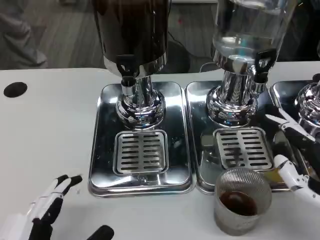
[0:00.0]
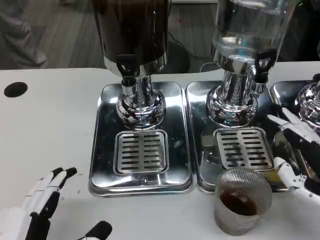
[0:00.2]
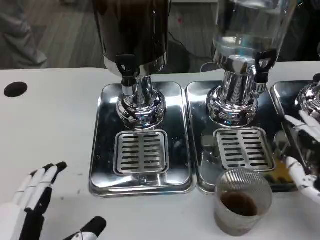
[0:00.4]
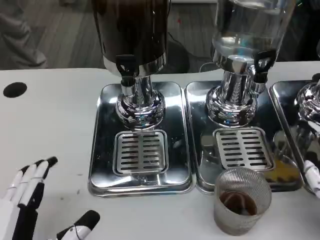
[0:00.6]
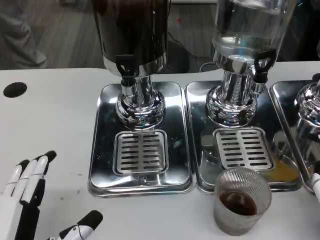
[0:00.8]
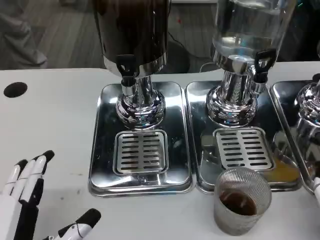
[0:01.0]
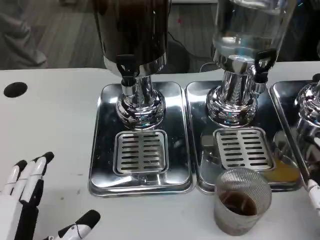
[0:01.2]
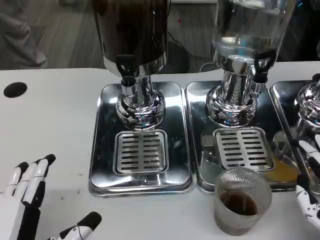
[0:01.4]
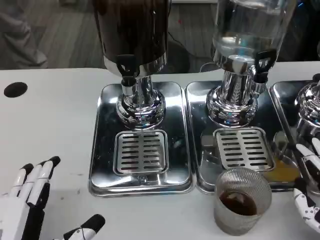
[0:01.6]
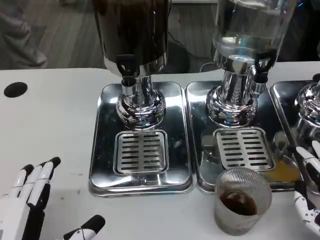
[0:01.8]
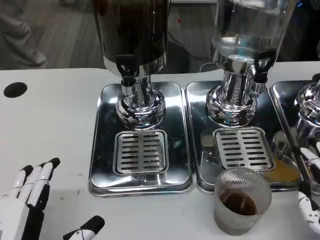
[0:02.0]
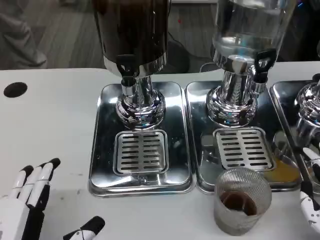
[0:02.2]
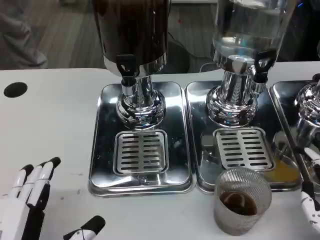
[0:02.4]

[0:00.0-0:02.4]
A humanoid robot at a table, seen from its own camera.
Task of the whole recording: Grasp the cup under the faucet to collect the drink, then remove the cup.
0:01.2 to 0:02.4: The hands stay close to where they were, moving slightly.

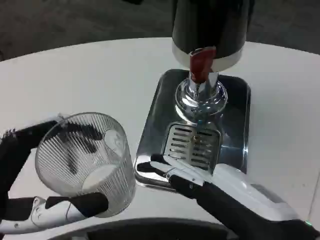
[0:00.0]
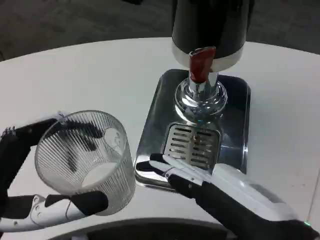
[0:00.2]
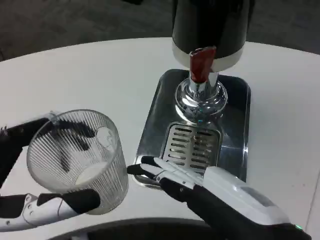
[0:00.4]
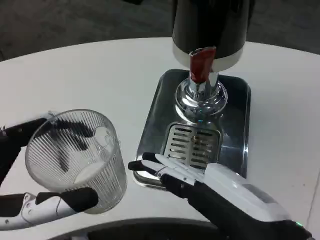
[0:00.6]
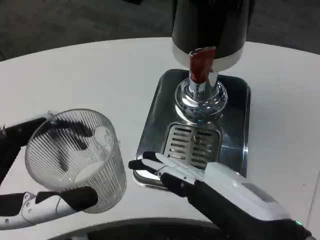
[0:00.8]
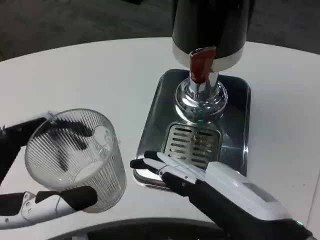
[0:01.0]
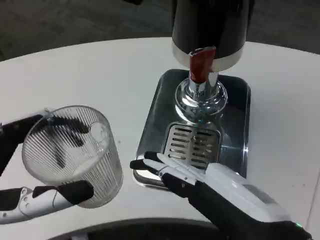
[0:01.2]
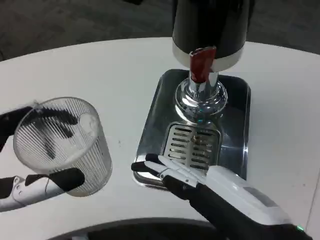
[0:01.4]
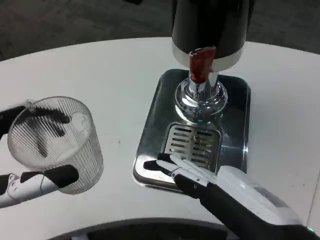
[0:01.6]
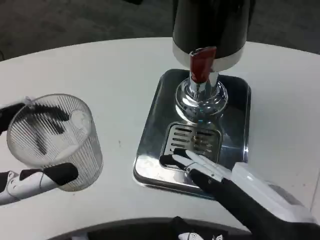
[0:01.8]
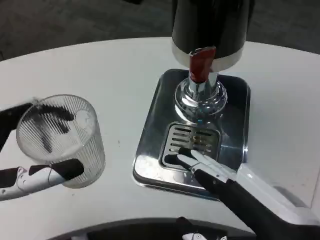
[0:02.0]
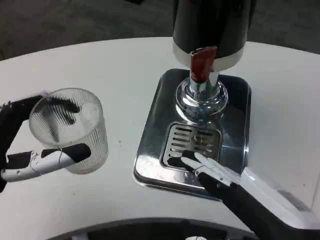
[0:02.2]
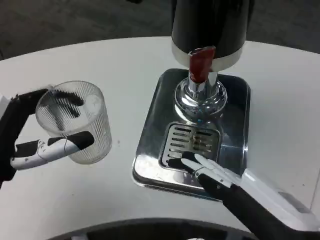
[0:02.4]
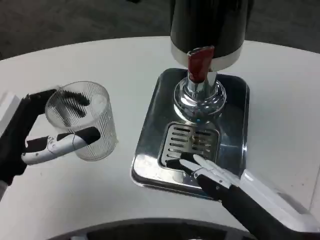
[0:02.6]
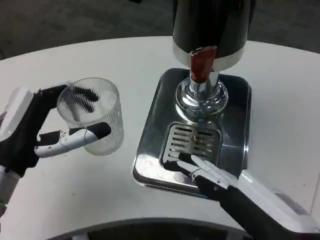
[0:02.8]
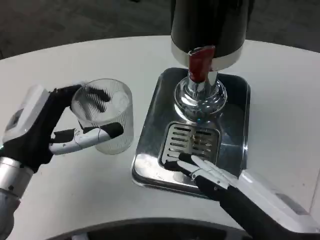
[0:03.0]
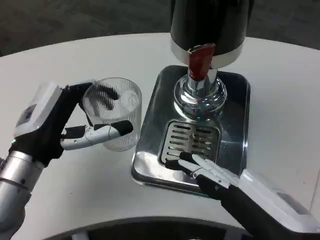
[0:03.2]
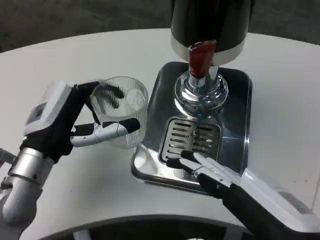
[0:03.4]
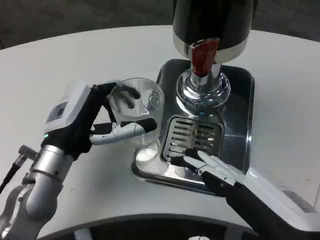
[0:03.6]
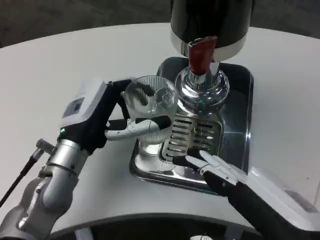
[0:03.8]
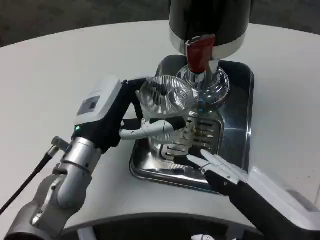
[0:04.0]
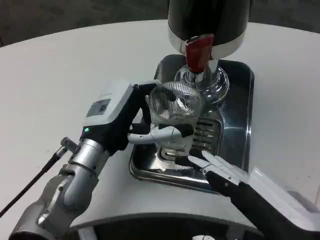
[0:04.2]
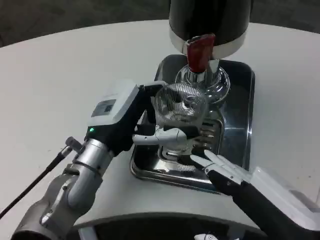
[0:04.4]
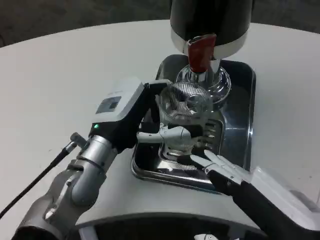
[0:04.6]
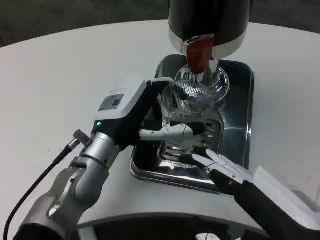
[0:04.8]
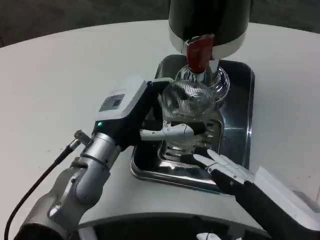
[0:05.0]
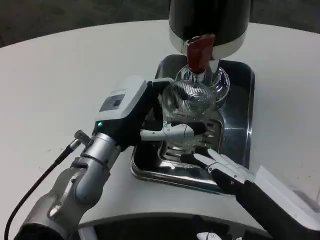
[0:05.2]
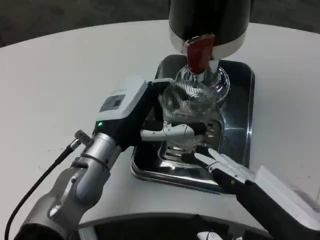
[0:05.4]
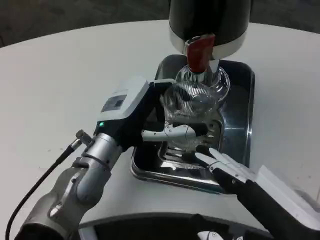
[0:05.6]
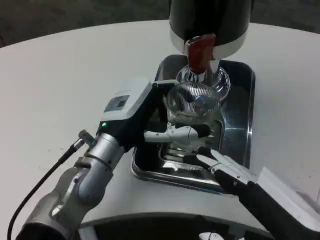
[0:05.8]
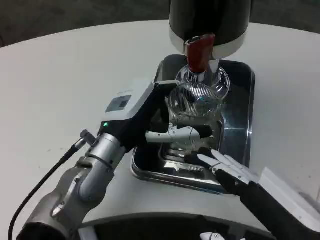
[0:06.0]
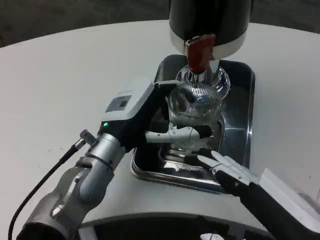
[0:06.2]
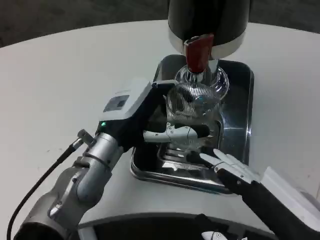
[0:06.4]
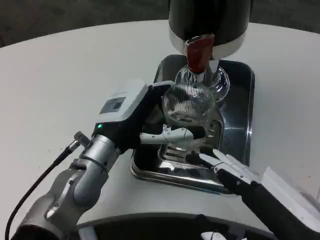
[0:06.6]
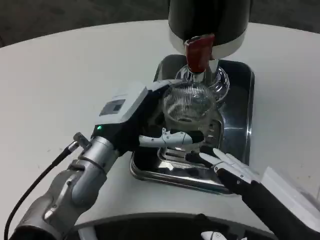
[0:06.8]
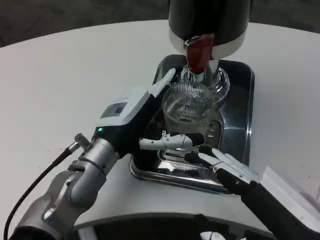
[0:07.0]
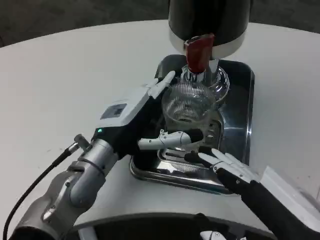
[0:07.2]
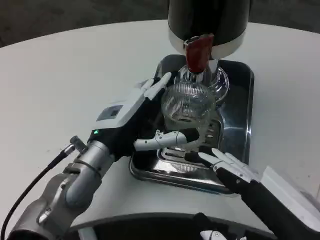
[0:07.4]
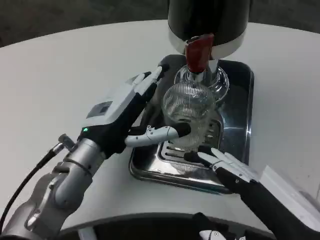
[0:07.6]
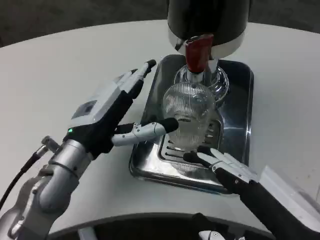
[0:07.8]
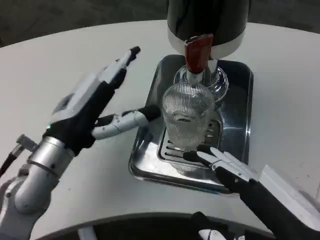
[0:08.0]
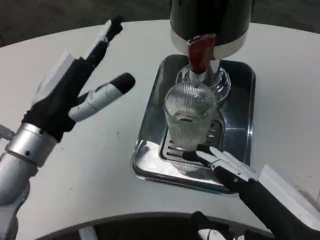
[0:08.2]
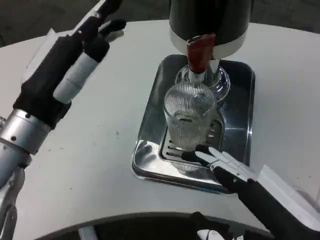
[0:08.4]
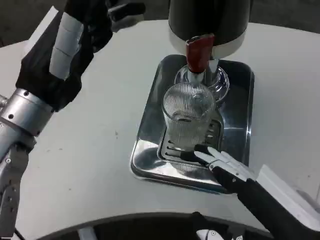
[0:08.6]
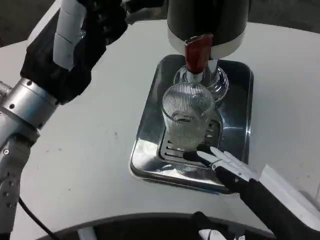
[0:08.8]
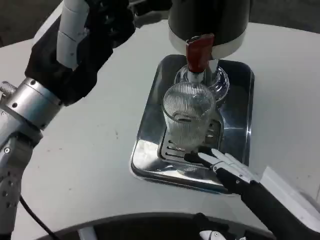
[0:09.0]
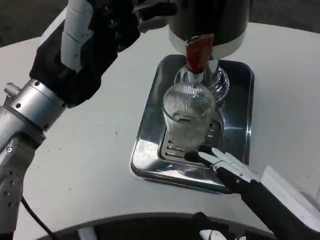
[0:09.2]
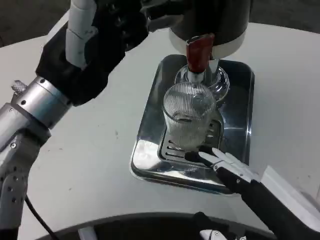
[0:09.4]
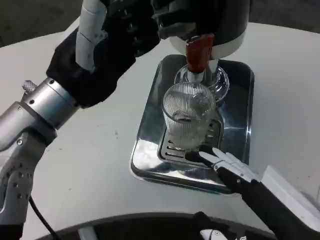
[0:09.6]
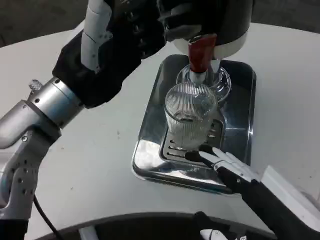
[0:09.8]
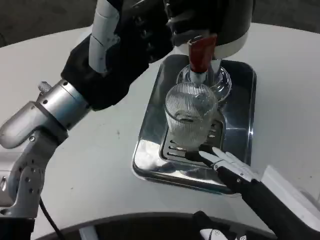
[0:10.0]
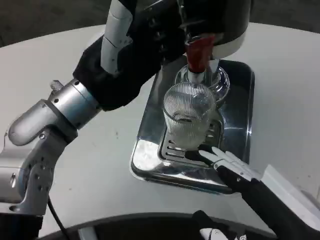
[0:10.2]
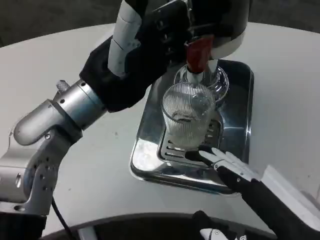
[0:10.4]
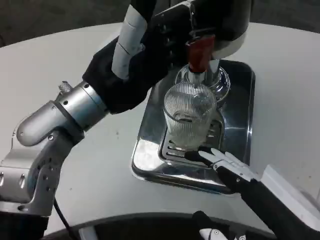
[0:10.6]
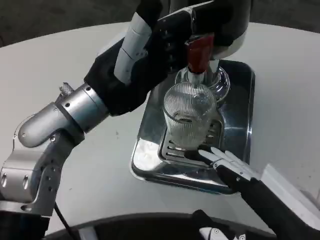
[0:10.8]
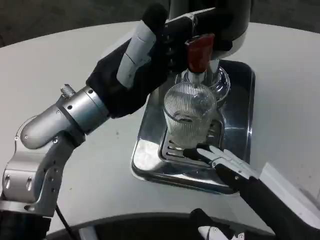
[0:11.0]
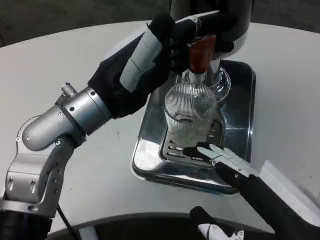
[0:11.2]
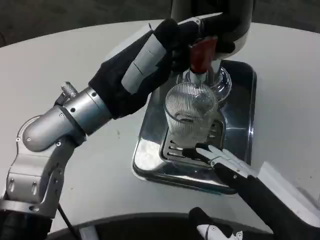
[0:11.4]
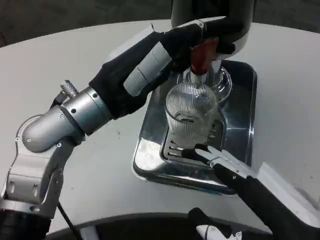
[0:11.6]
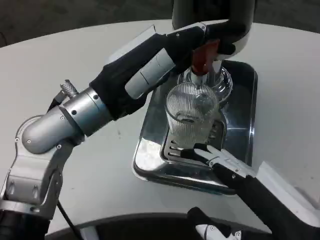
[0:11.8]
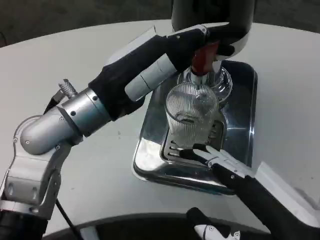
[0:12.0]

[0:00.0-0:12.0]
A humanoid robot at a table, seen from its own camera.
Task of the whole recording: Grasp the cup under the faucet to collect the drink, then remove the cup.
0:00.0 to 0:01.6: The hands make only small movements.
0:01.6 to 0:03.0: The left hand travels forward by approximately 10 cm.
0:03.0 to 0:04.4: The left hand heads to the right and forward, covering some 10 cm.
0:04.4 to 0:06.0: There are only small adjustments of the hands.
0:07.6 to 0:09.0: The left hand heads upward, covering approximately 10 cm.

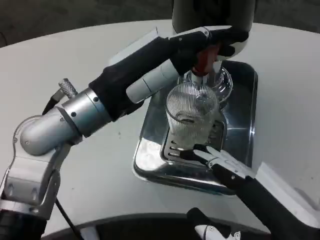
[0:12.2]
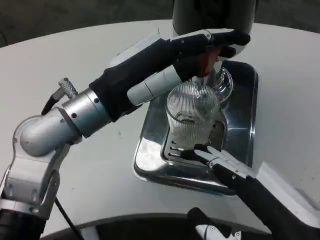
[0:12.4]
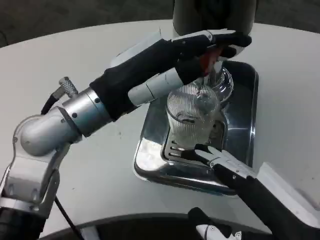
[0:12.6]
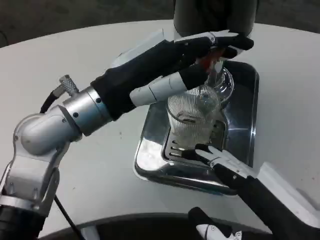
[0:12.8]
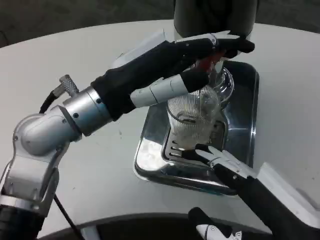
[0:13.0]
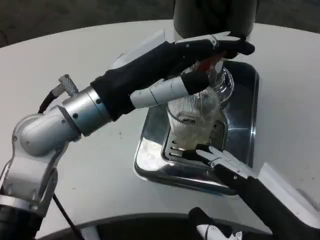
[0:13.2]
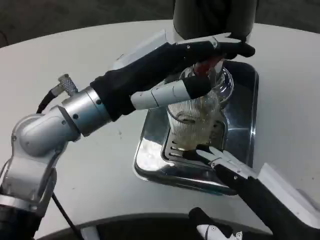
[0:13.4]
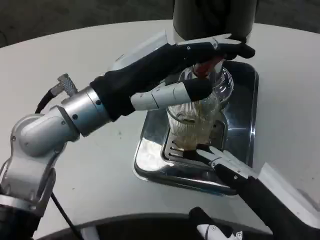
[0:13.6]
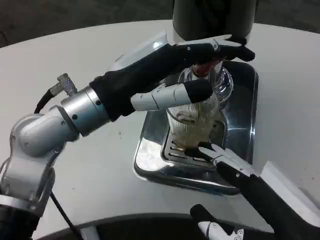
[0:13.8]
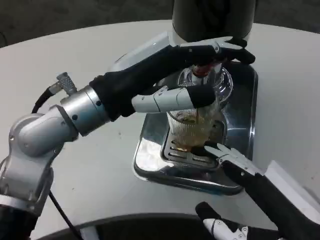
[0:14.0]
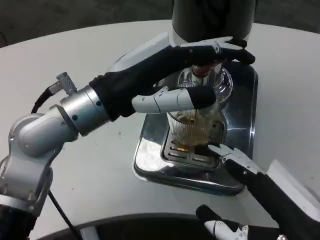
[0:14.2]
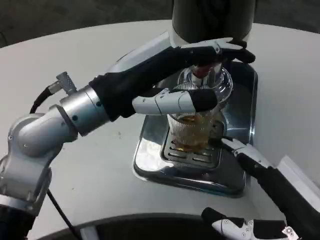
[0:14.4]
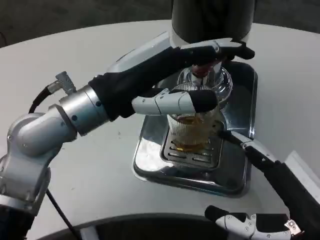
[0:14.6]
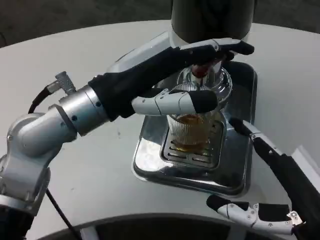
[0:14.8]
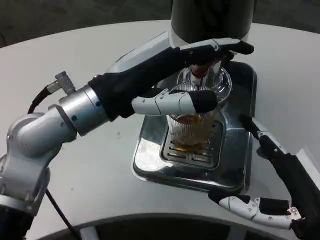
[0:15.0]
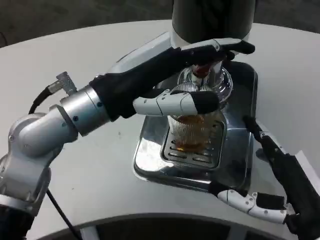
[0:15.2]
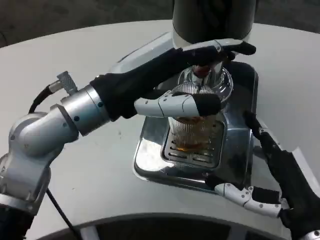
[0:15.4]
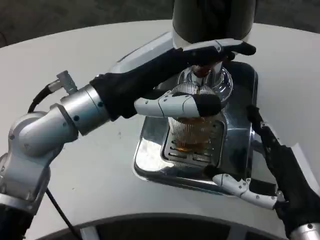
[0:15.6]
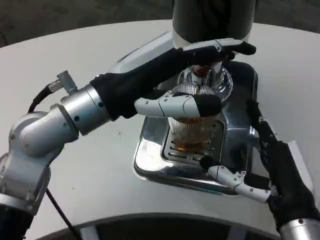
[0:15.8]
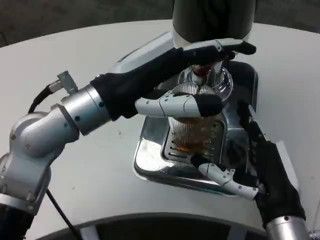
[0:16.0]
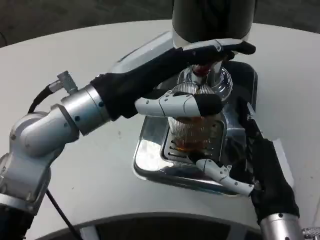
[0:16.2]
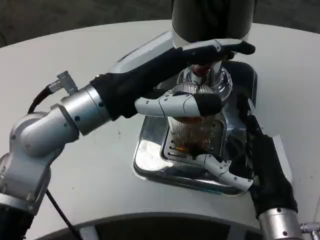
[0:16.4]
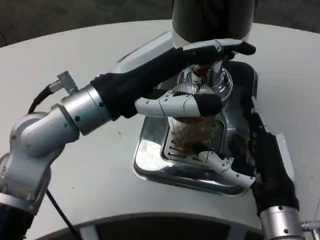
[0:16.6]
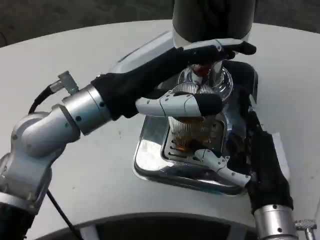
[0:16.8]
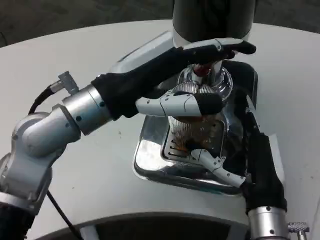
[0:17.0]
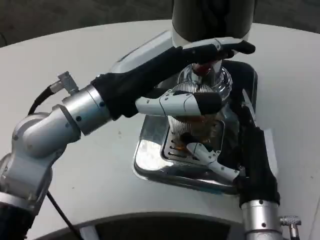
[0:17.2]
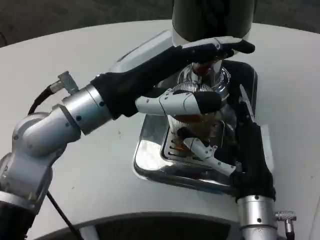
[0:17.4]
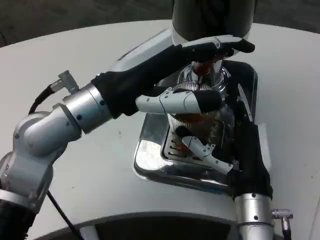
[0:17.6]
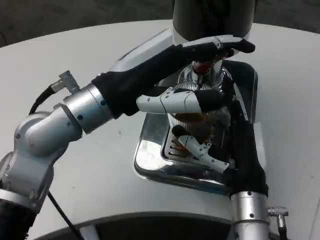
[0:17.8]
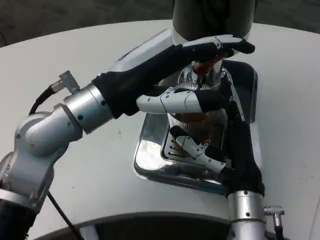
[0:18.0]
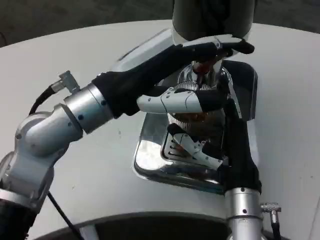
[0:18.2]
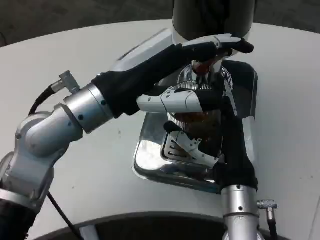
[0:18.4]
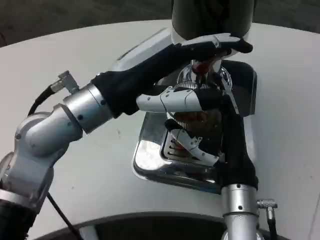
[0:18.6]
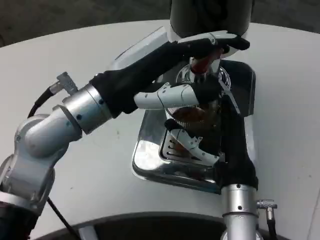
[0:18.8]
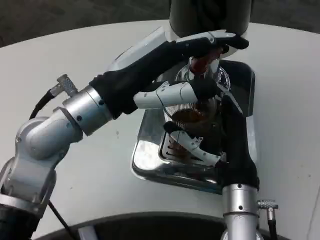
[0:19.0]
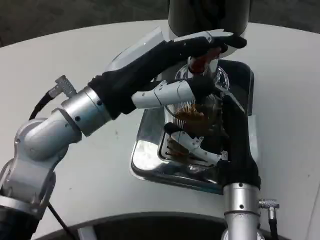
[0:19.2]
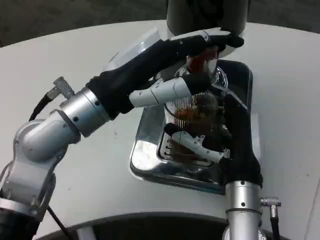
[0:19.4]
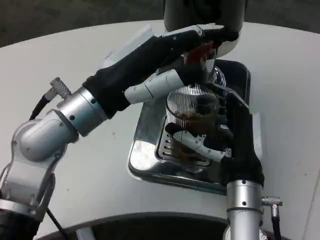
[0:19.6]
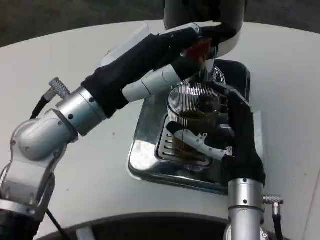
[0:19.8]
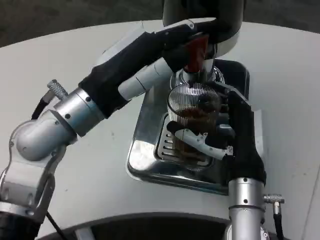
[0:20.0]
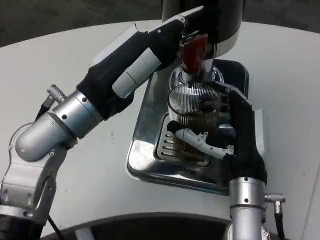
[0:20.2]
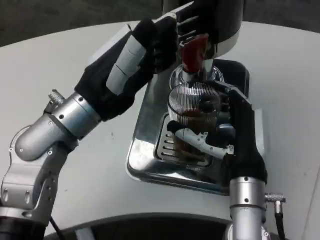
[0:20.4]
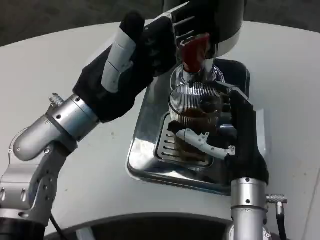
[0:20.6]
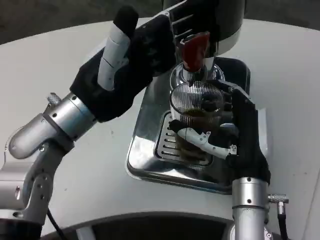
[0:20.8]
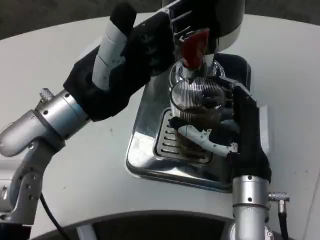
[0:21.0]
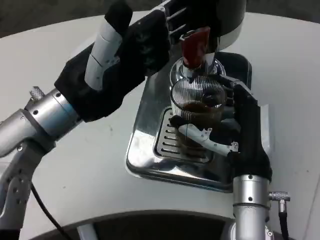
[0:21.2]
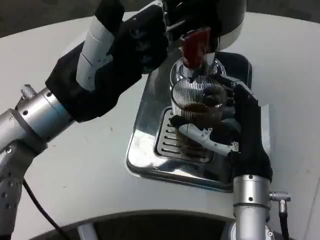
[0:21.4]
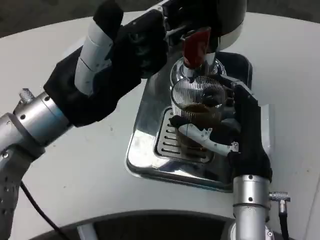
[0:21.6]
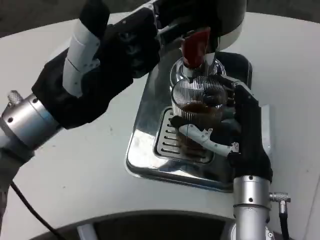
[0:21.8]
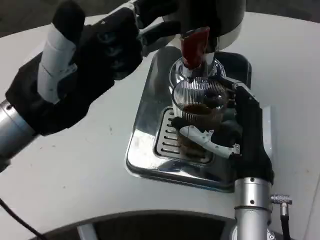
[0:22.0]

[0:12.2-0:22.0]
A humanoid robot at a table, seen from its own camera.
Task of the whole recording: Grasp the cup under the faucet to collect the drink, then remove the cup.
0:12.2 to 0:13.6: The hands stay close to where they were, moving slightly.
0:15.0 to 0:16.4: The right hand heads forward, covering roughly 5 cm.
0:16.4 to 0:17.8: The right hand ends up about 5 cm from where it was.
0:20.6 to 0:22.0: The left hand goes about 5 cm backward.
